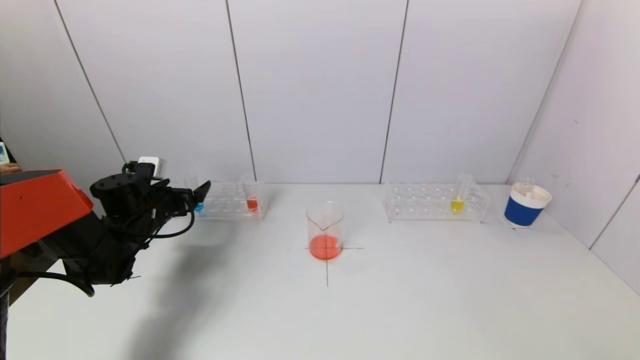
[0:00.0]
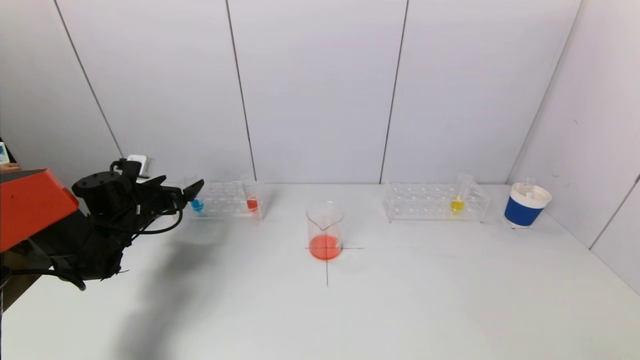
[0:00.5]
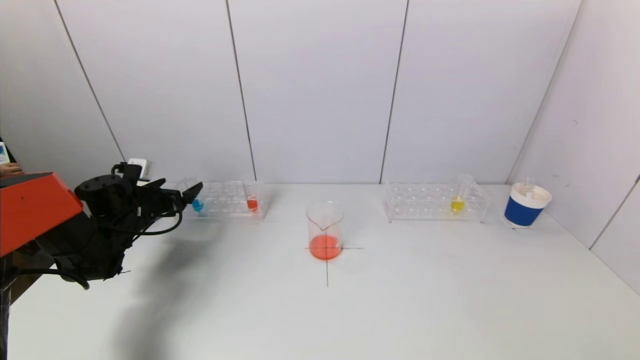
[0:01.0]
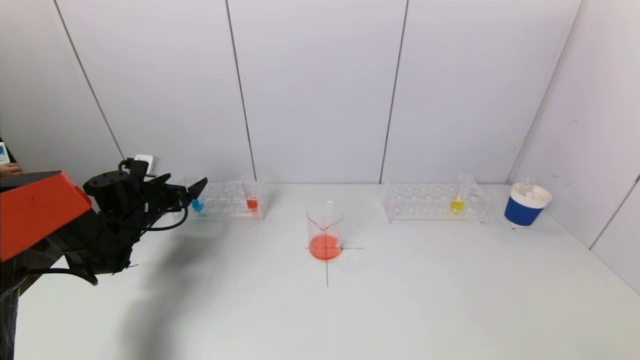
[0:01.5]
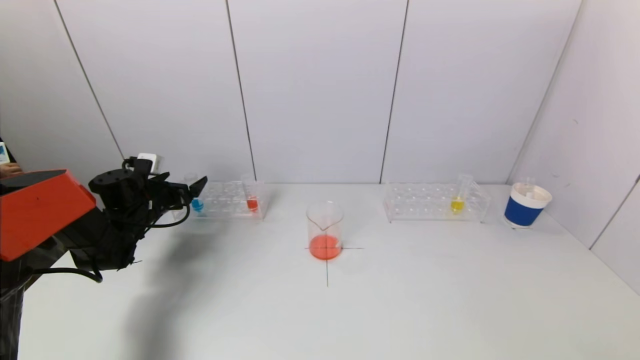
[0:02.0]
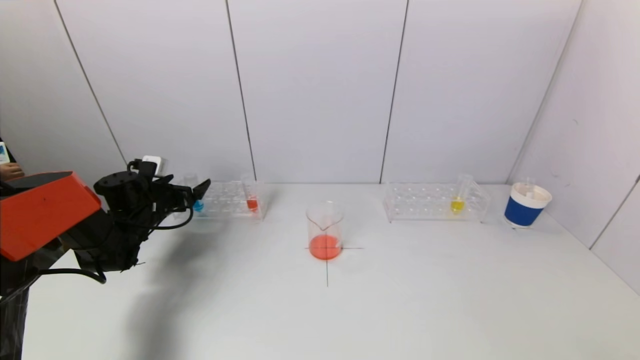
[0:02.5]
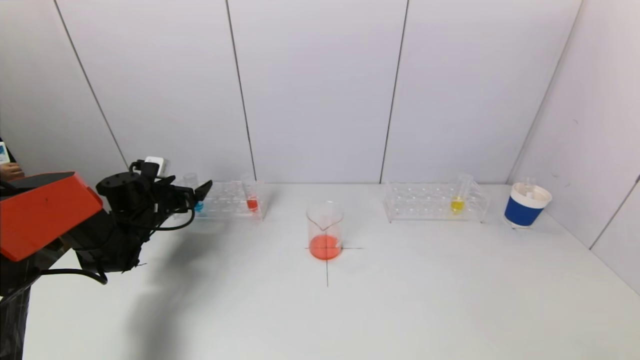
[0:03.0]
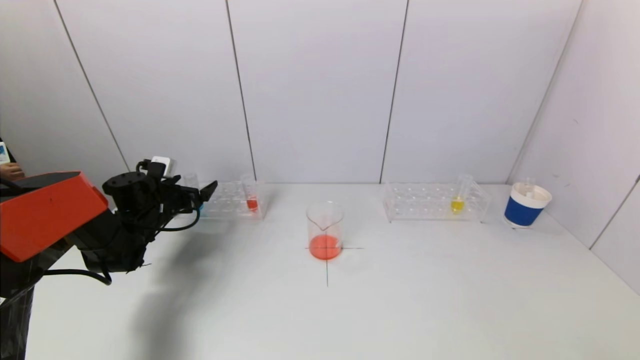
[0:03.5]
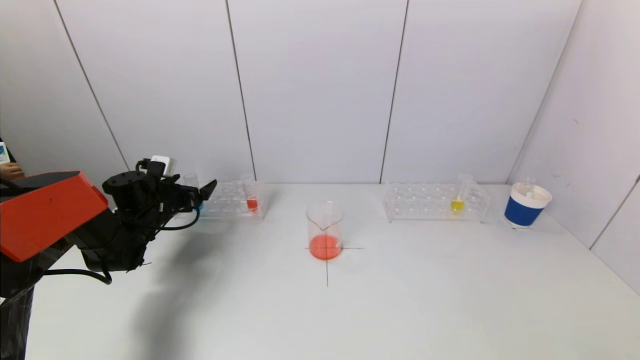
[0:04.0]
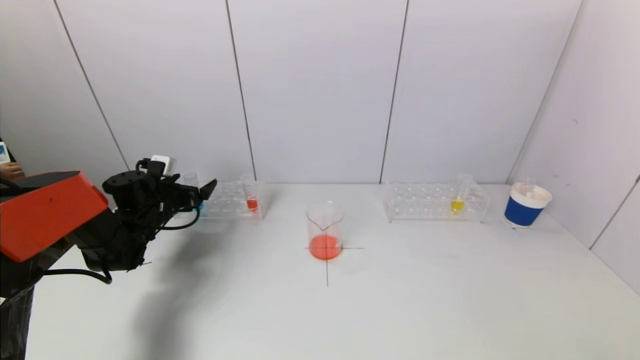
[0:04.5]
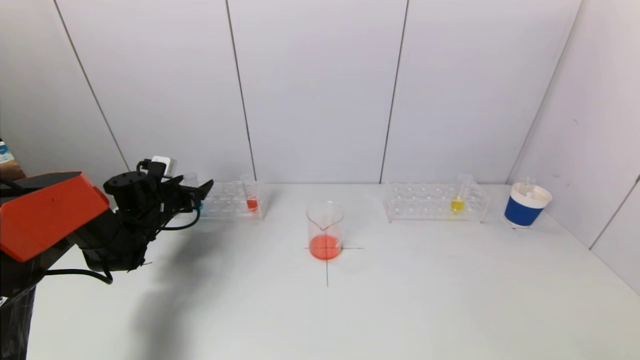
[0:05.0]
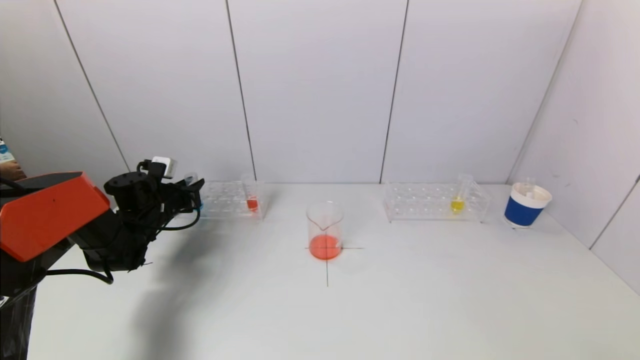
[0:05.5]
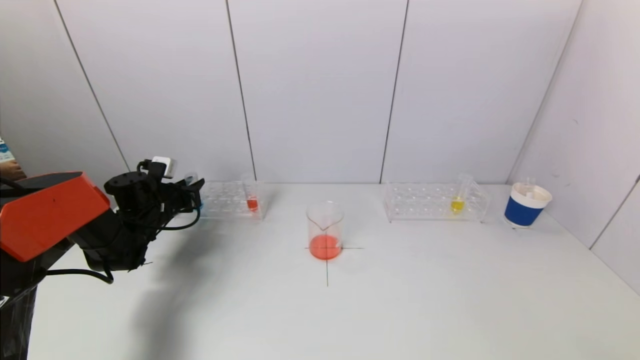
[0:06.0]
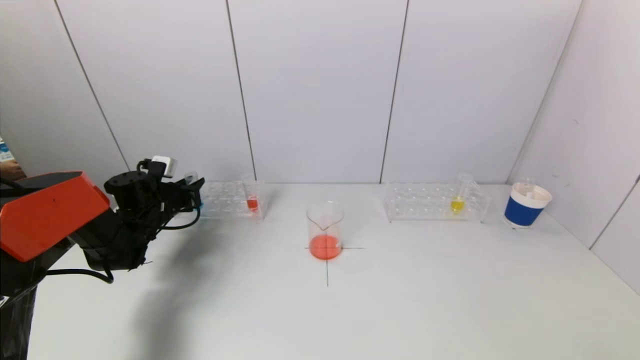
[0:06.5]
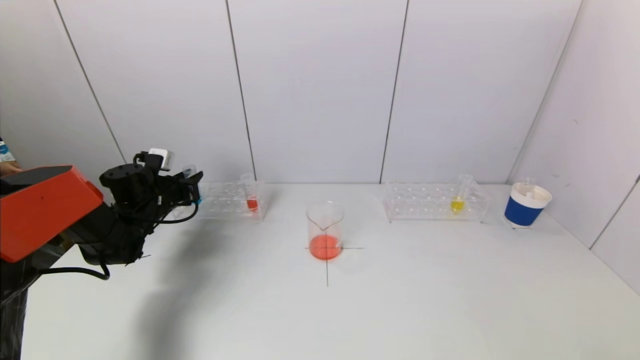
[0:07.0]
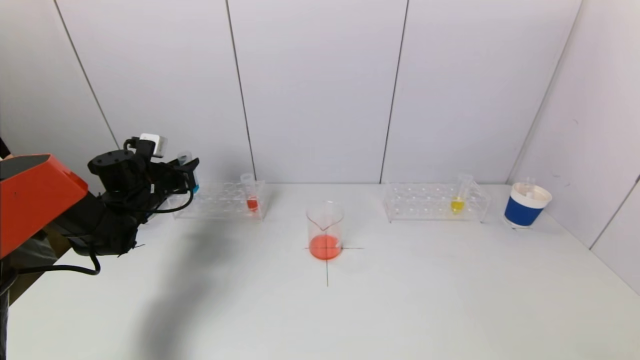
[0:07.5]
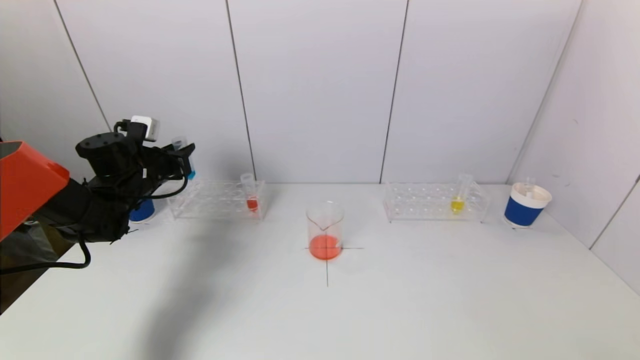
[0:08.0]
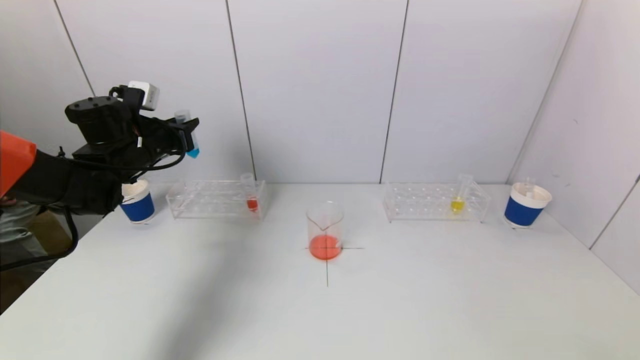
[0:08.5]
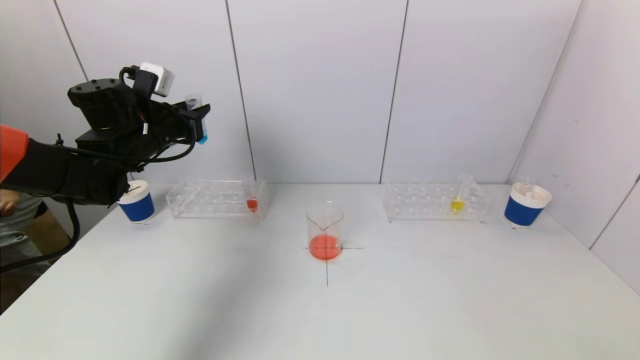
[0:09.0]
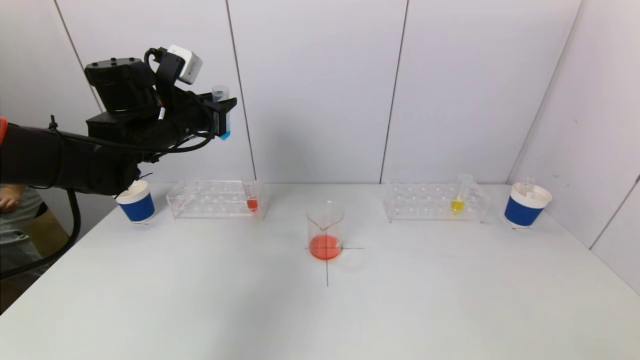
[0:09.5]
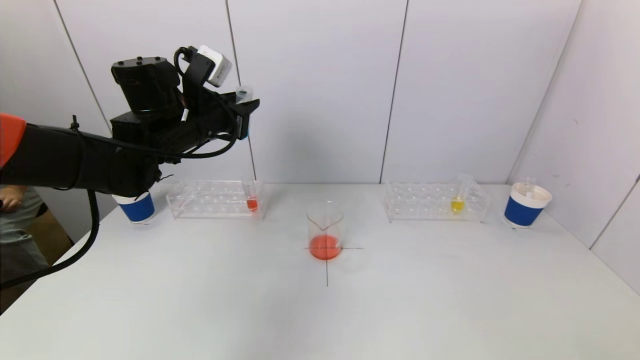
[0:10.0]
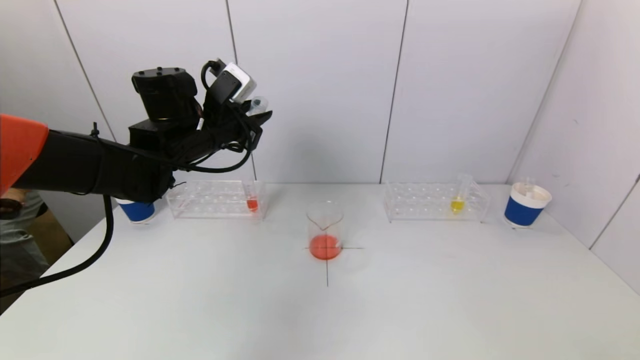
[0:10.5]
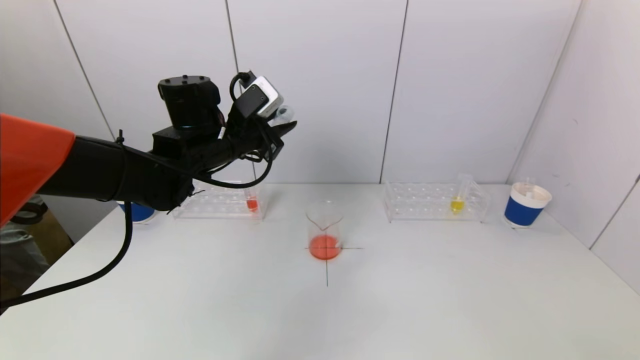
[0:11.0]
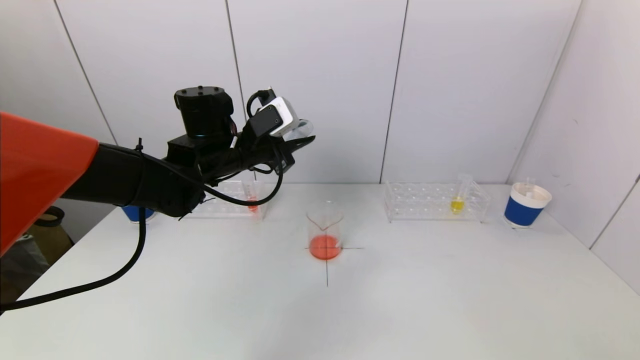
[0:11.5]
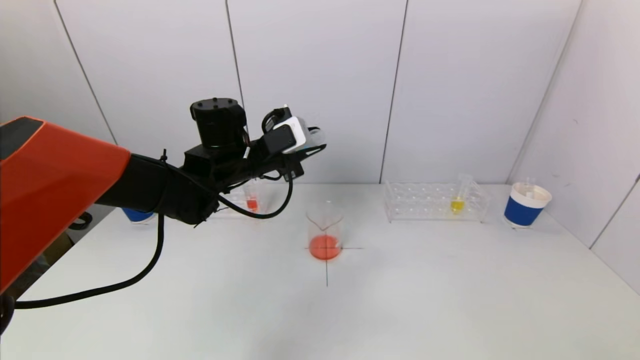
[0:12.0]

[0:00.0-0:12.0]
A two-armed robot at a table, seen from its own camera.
Task of the whole recording: pick up a test tube with pigment on left test tube rack and a test tube with pigment on right test tube rack by grippers and pour them into the beaker.
Step, 0:00.0 to 0:05.5: Grasp the blue reagent with the left gripper.
0:00.0 to 0:04.0: The grippers stay close to where they were, moving slightly.
0:04.0 to 0:06.0: The left gripper closes its fingers.
0:06.0 to 0:08.0: The left gripper heads upward, covering about 10 cm.
0:08.0 to 0:10.0: The left gripper is displaced to the right and upward by roughly 15 cm.
0:10.0 to 0:12.0: The left gripper shifts roughly 10 cm to the right and downward.

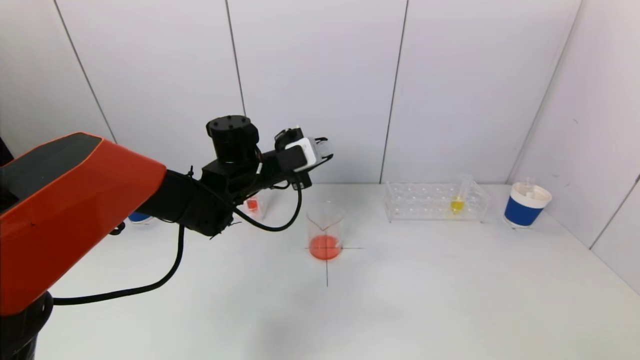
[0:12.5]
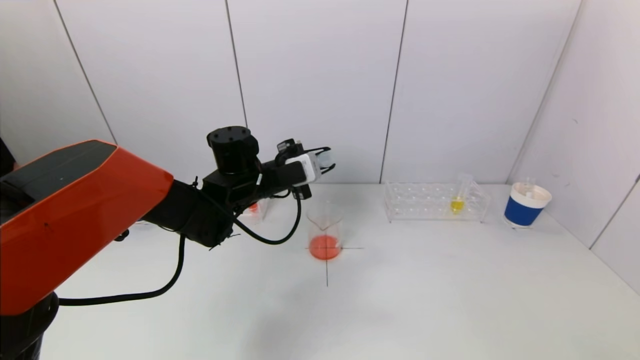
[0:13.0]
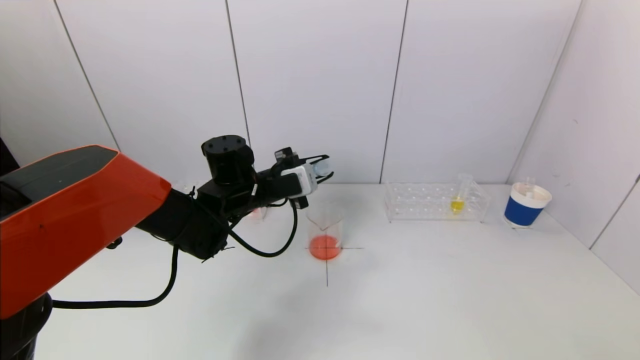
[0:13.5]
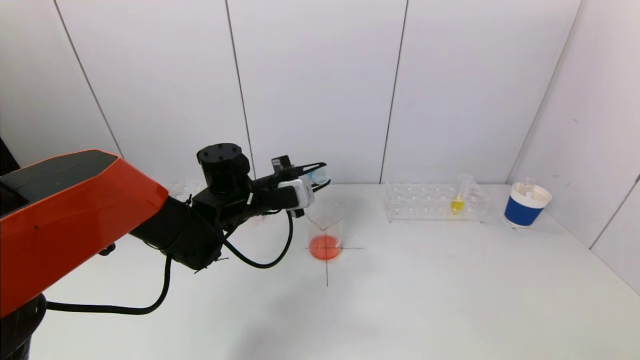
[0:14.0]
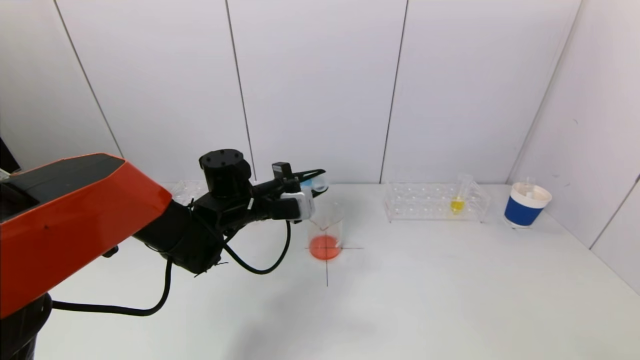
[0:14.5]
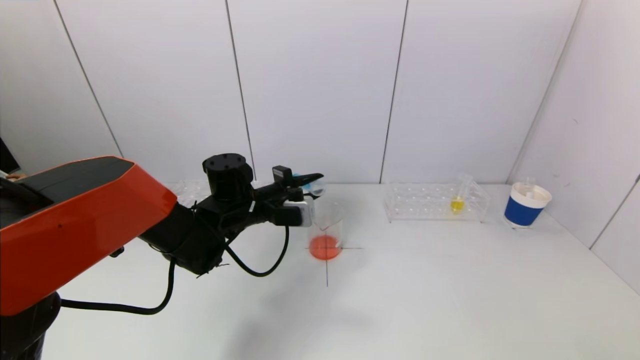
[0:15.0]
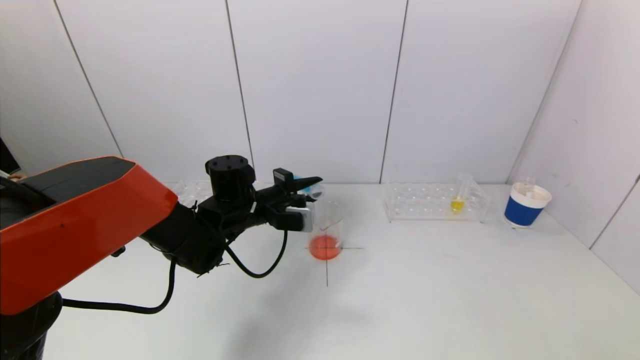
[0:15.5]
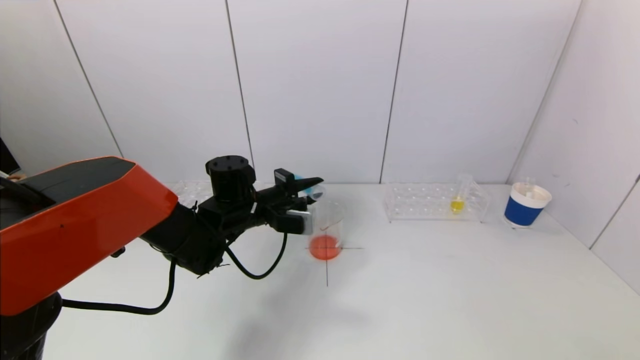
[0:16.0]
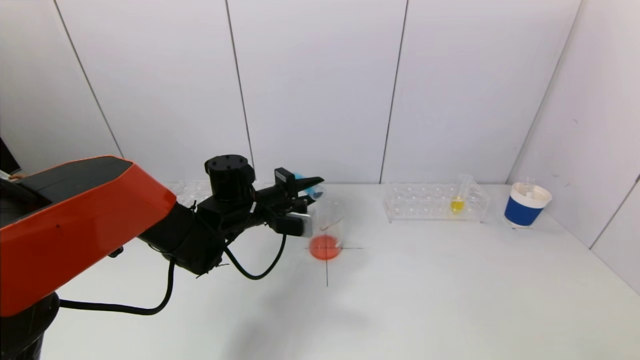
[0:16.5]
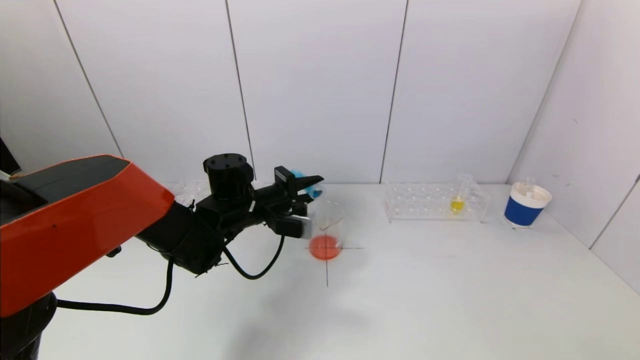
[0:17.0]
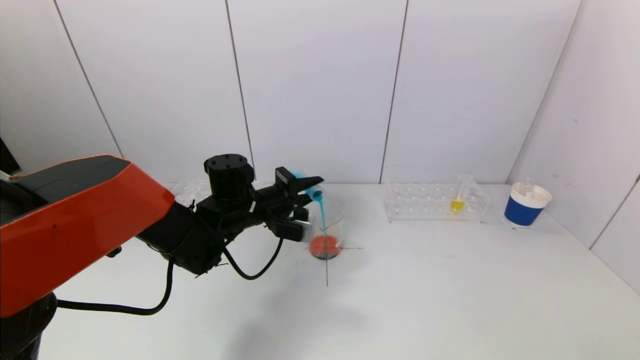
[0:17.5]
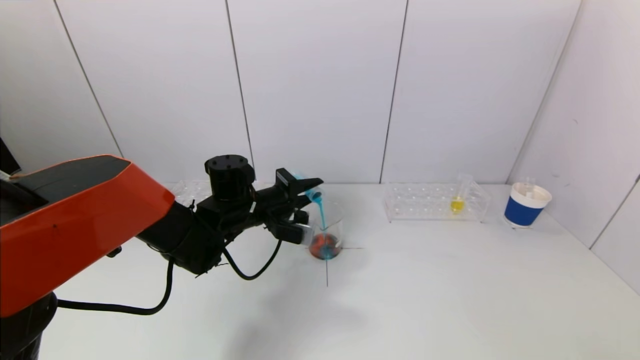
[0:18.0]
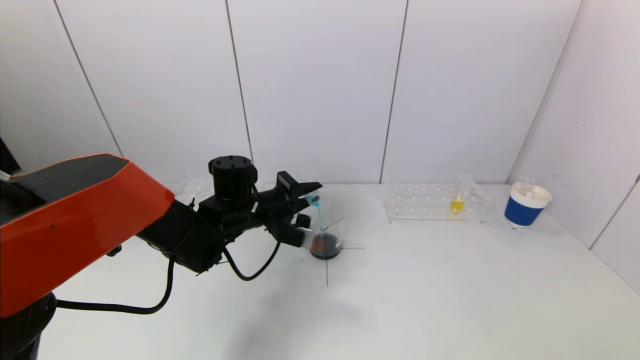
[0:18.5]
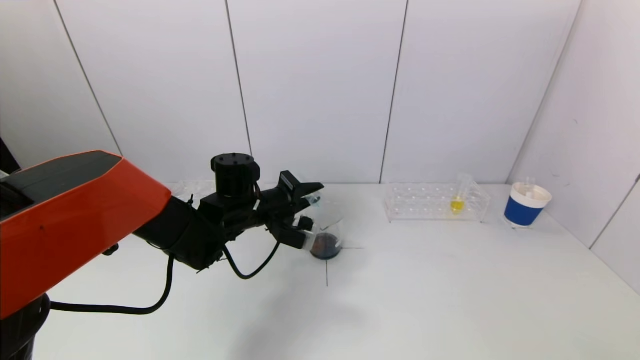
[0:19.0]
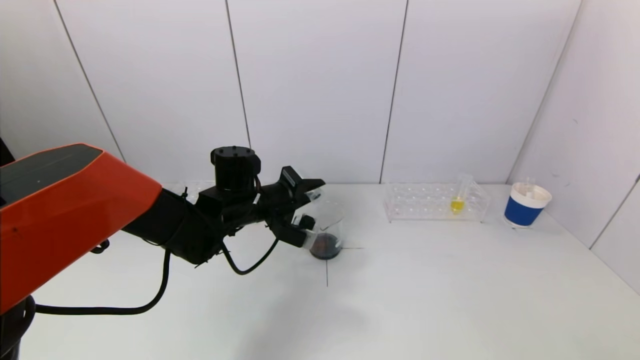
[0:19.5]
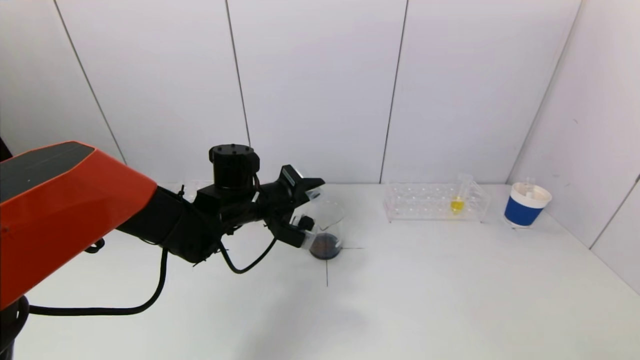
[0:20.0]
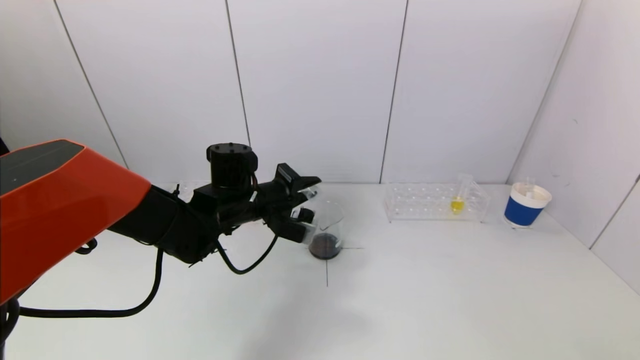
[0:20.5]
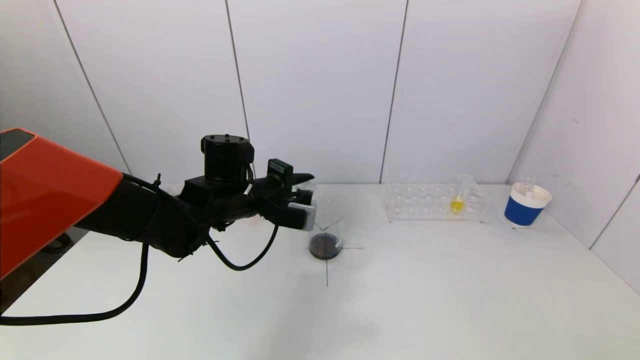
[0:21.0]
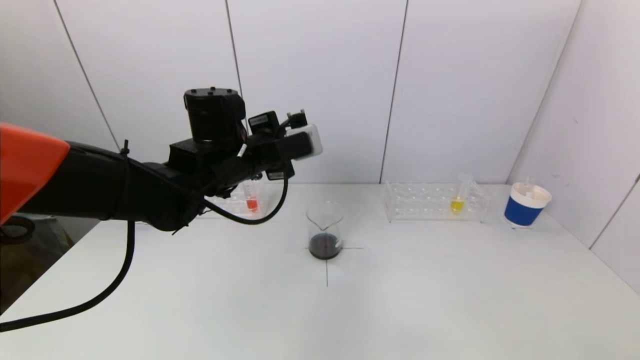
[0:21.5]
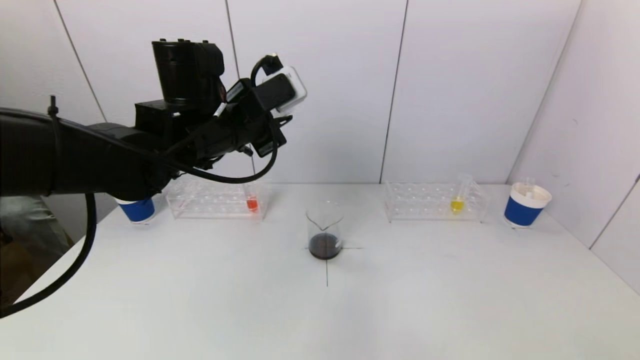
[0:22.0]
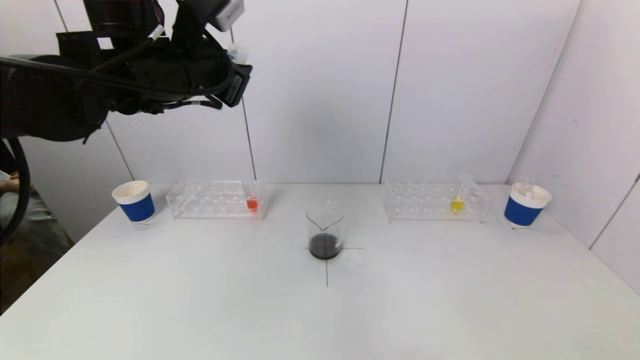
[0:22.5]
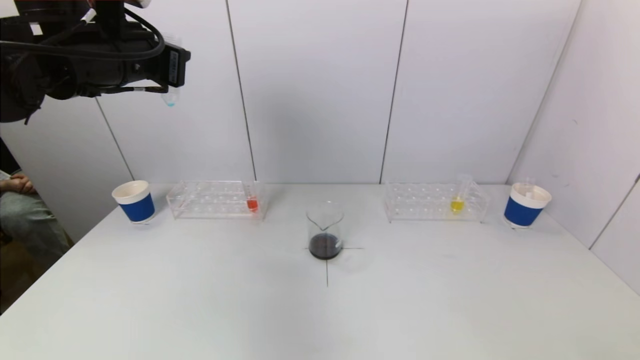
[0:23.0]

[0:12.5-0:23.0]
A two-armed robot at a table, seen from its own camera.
Task of the whole recording: pick up a test tube with pigment on left test tube rack and a test tube with pigment on right test tube rack by grippers and pour them into the beaker.
Step, 0:12.5 to 0:20.0: Pour the blue reagent into the graduated cylinder with the left gripper.
0:12.5 to 0:14.5: The left gripper ends up some 5 cm from where it was.
0:14.5 to 0:16.5: There are only small adjustments of the grippers.
0:16.5 to 0:19.0: The grippers make only small movements.
0:19.0 to 0:21.0: The grippers stay close to where they were, moving slightly.
0:21.0 to 0:23.0: The left gripper is displaced upward and to the left by roughly 25 cm.
